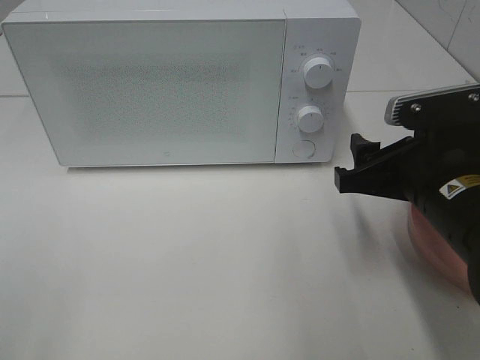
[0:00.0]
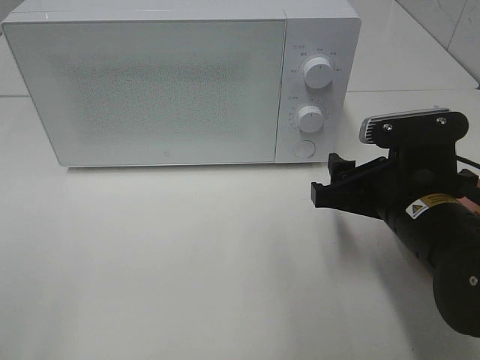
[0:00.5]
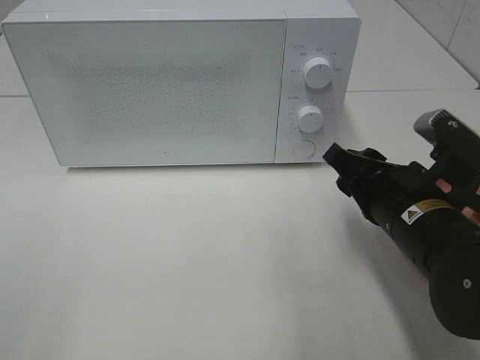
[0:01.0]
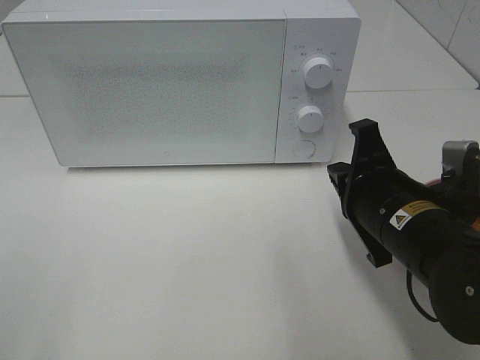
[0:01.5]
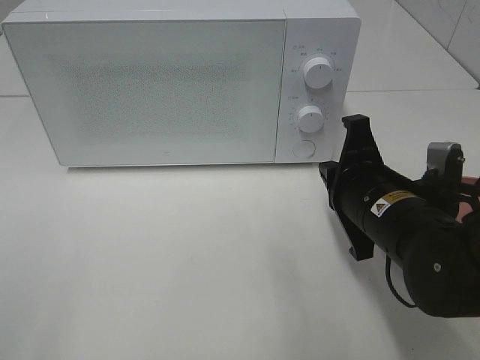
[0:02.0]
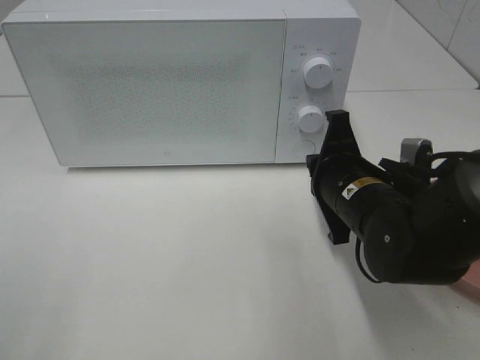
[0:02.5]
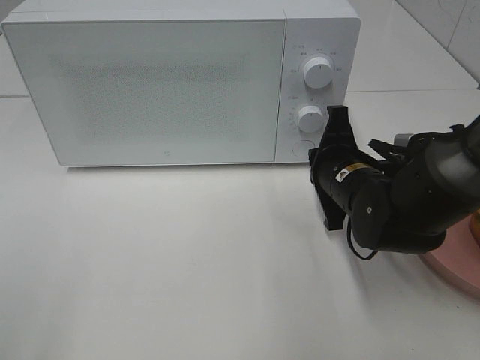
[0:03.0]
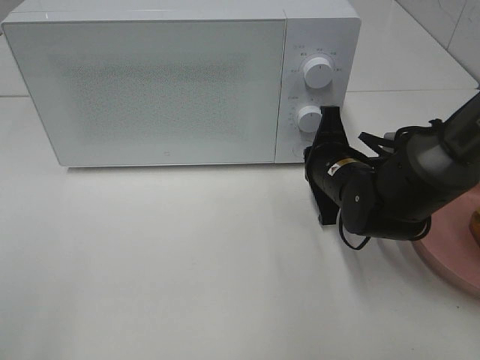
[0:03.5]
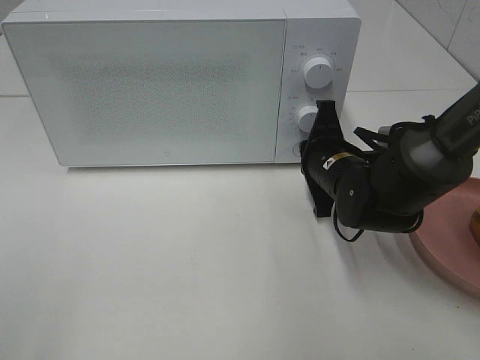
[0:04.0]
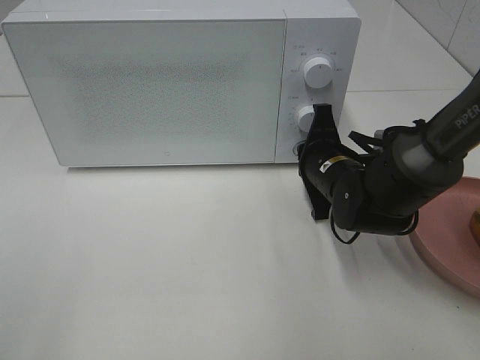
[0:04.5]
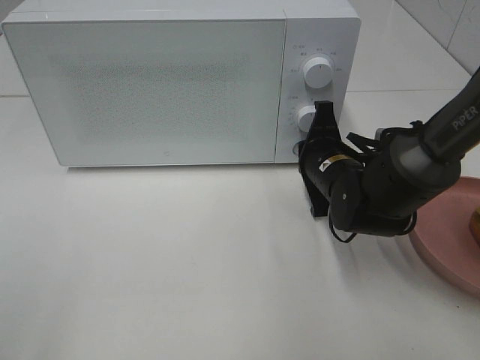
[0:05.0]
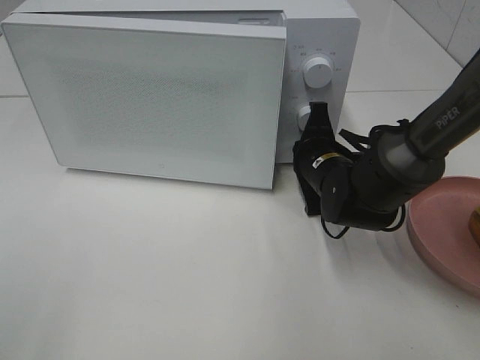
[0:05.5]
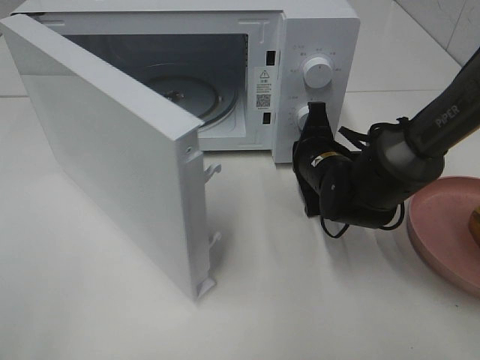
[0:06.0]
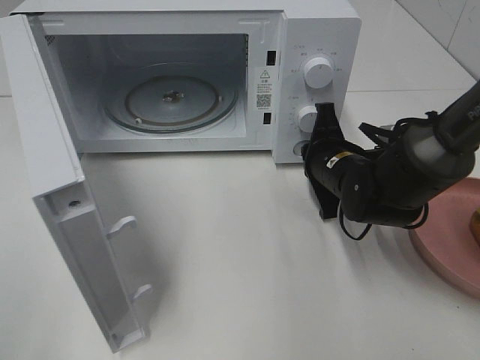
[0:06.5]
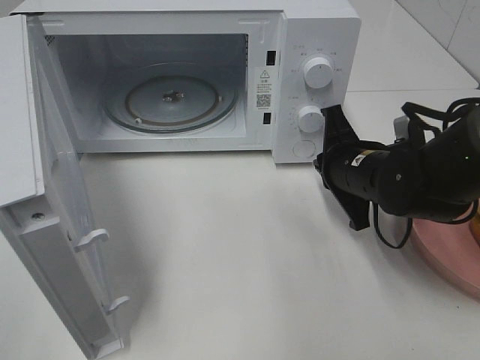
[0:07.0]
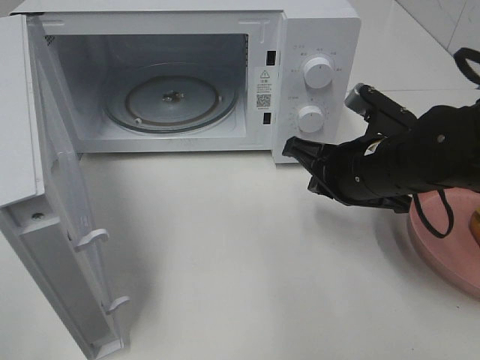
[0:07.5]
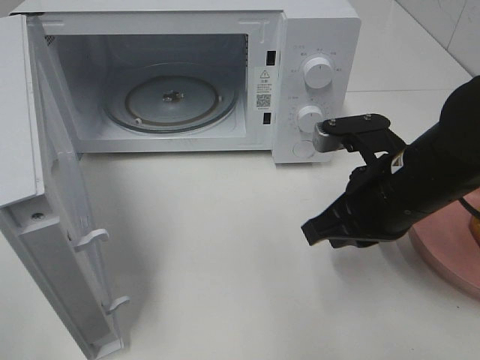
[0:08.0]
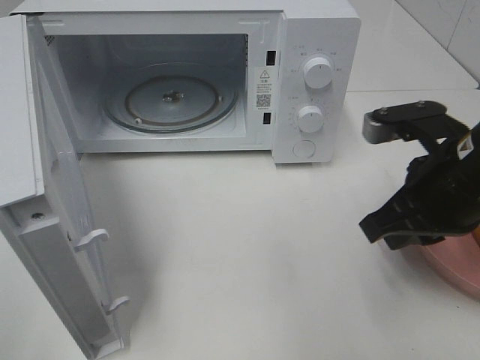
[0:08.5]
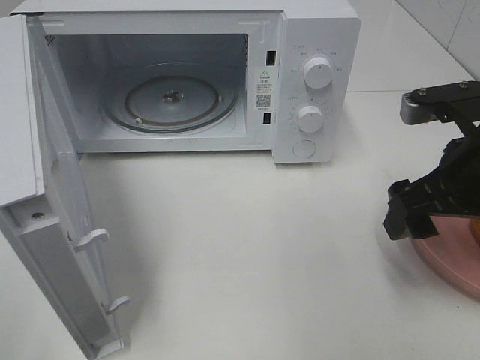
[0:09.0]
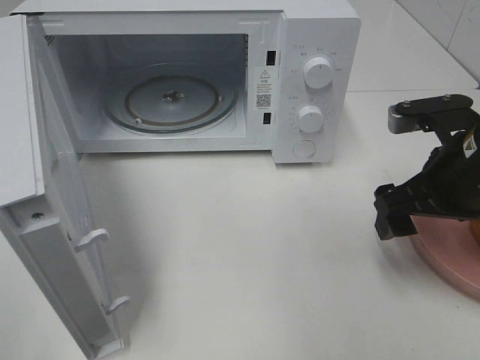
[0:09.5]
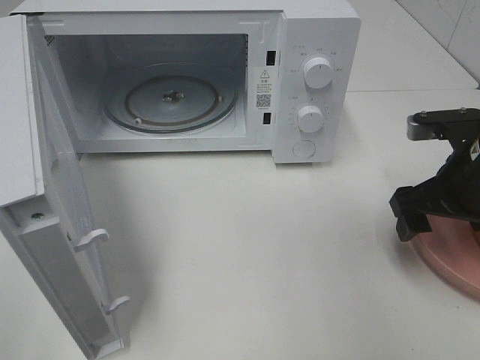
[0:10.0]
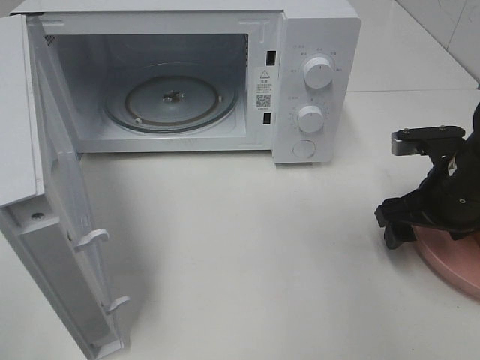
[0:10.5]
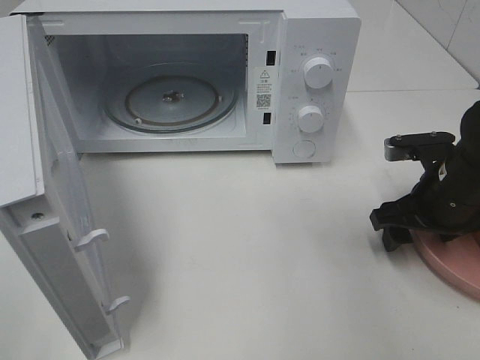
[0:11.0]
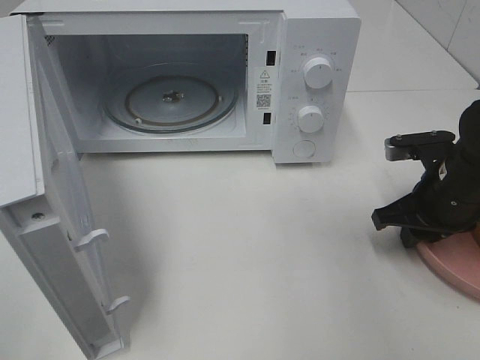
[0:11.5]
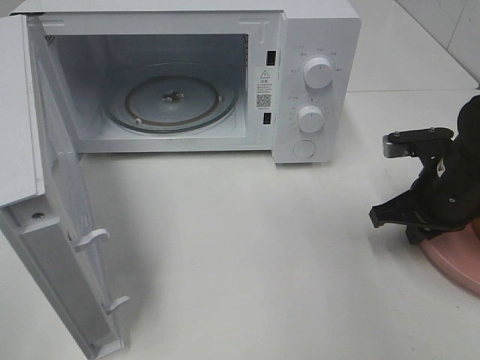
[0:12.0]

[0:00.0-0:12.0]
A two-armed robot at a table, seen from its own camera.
Task of the whole recording: Heat the burger.
Step, 0:00.0 to 0:06.5: Right hand: press the switch.
0:00.0 to 0:02.0: The right gripper ends up roughly 5 cm from where it was, and closes up.
0:02.0 to 0:04.0: The right gripper travels forward by roughly 10 cm.
0:06.0 to 0:08.0: The right gripper moves backward and upward, about 15 cm.
0:08.0 to 0:10.0: The right gripper shifts about 10 cm to the right, and opens.
0:10.0 to 0:12.0: The right gripper closes.

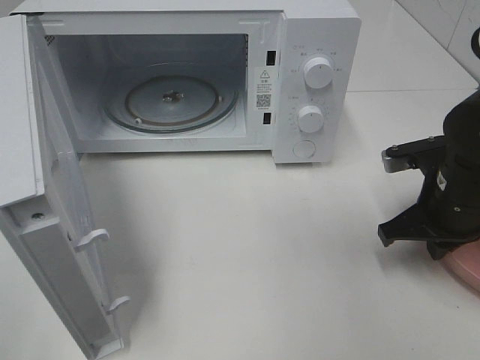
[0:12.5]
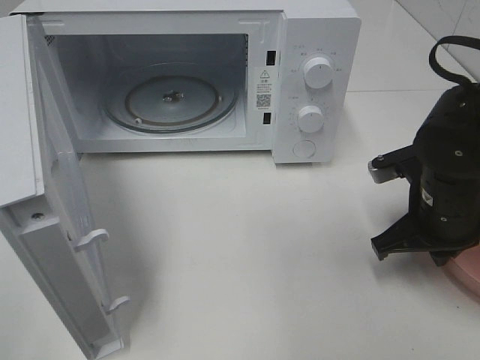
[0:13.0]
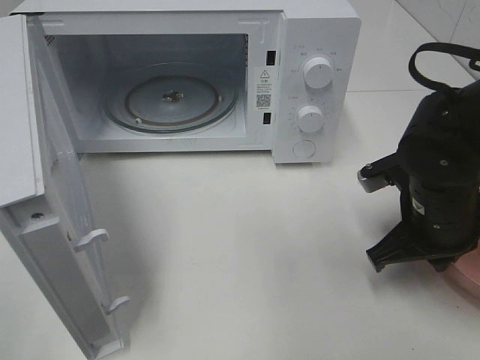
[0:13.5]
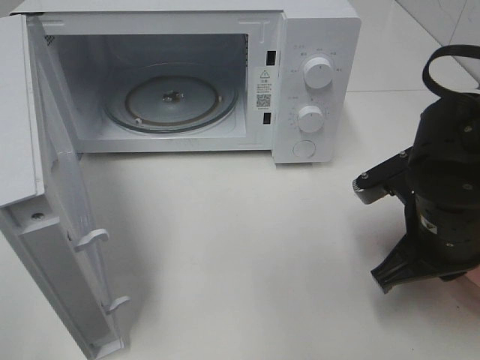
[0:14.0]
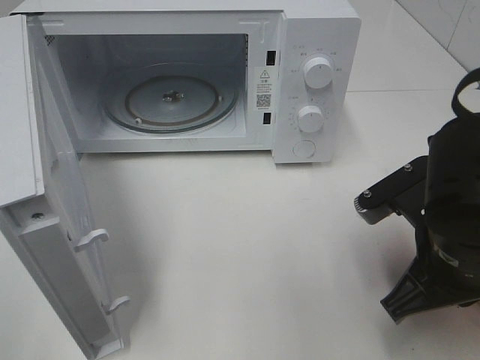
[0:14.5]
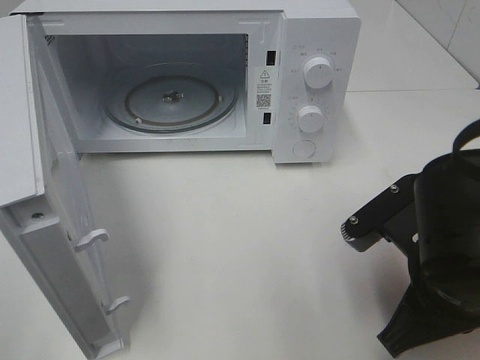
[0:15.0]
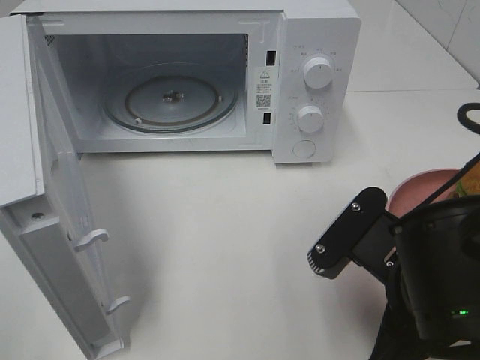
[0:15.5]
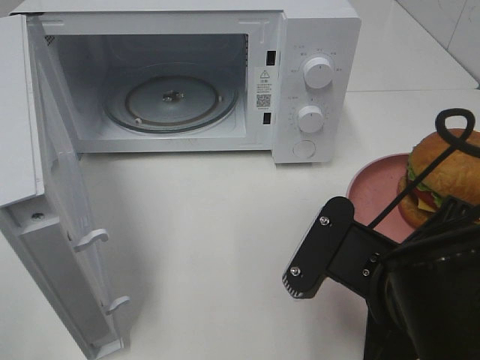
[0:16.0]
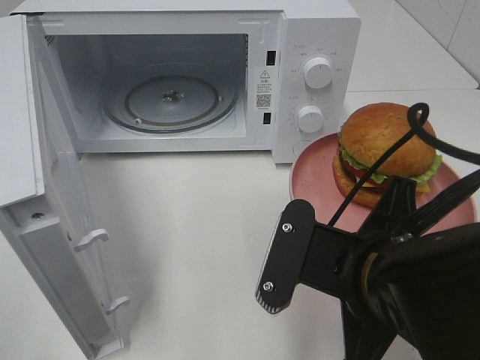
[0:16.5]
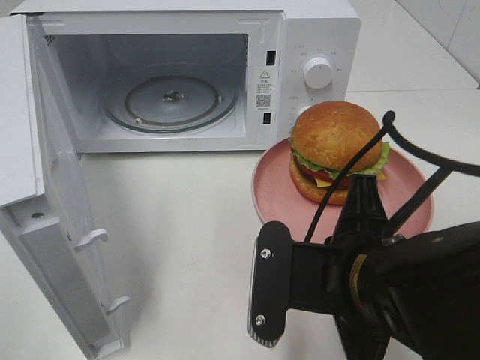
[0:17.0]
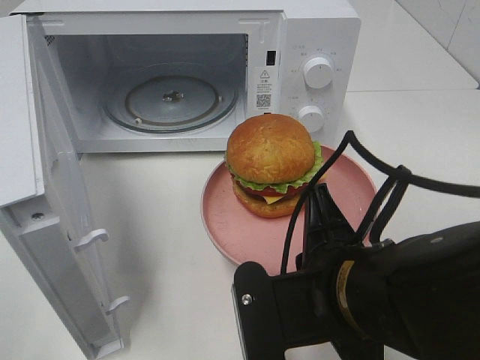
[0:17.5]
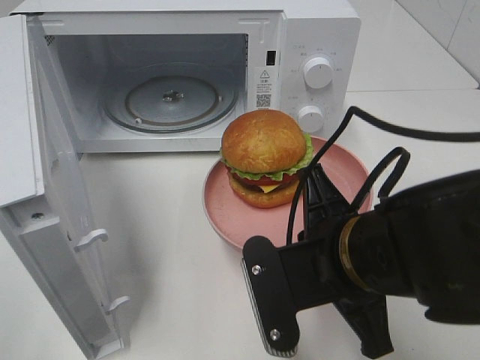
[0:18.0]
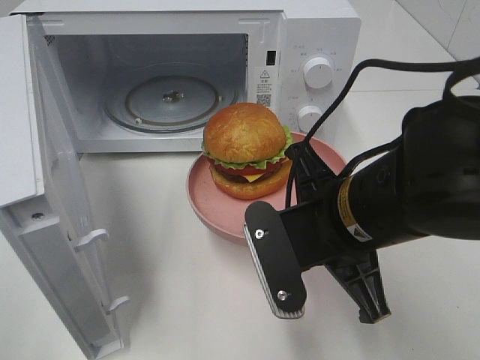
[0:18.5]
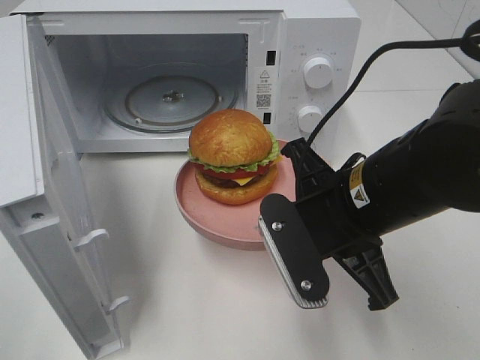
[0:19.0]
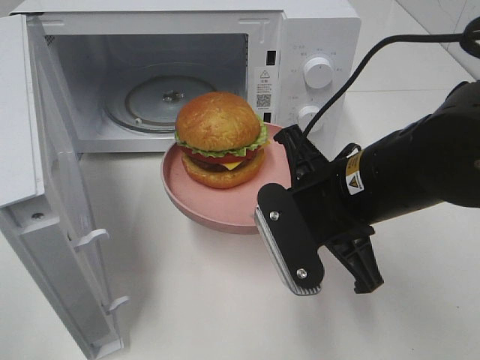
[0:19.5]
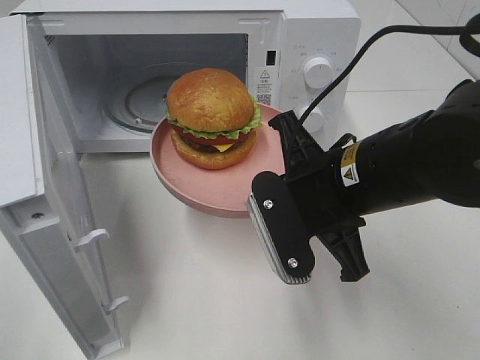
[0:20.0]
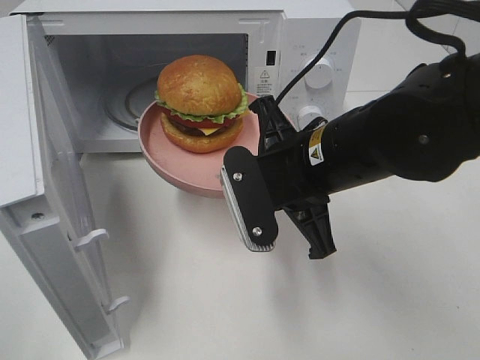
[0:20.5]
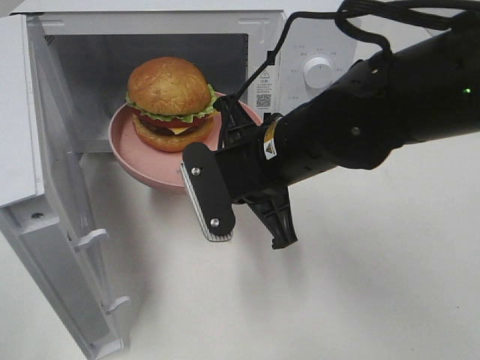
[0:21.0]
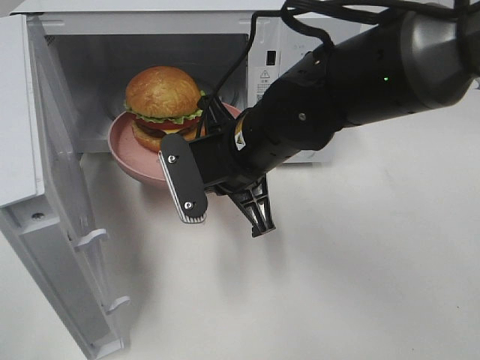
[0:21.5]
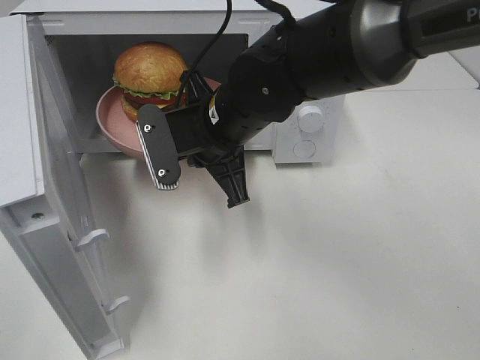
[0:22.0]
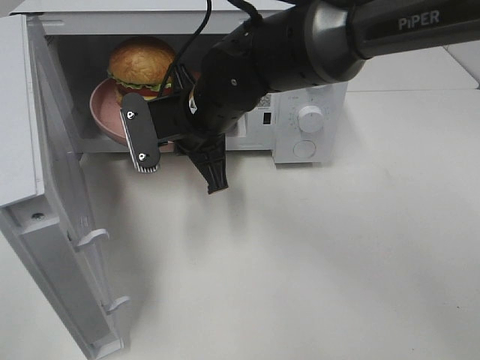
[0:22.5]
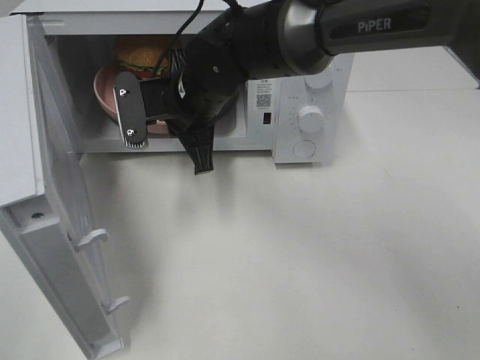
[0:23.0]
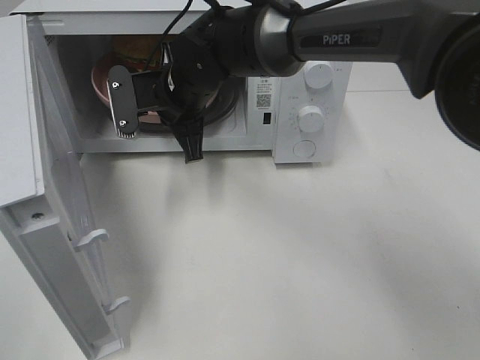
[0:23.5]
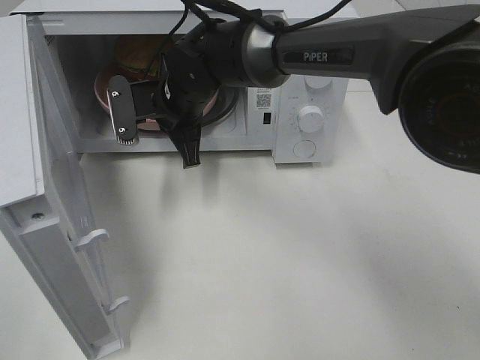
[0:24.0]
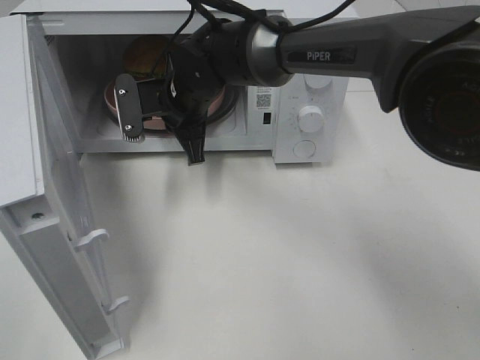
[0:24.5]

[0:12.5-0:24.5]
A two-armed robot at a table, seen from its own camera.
Task of the whole recording: Heat the burger.
0:12.5 to 0:14.5: The right gripper is displaced backward and to the left by approximately 10 cm.
0:14.5 to 0:16.5: The right gripper travels to the left by about 5 cm.
0:16.5 to 0:18.5: The right gripper heads forward, covering about 5 cm.
0:18.5 to 0:20.5: The right gripper moves forward, some 5 cm.
0:20.5 to 0:22.5: The right gripper heads to the left and forward, covering roughly 15 cm.
0:22.5 to 0:24.5: The right gripper goes roughly 5 cm forward.

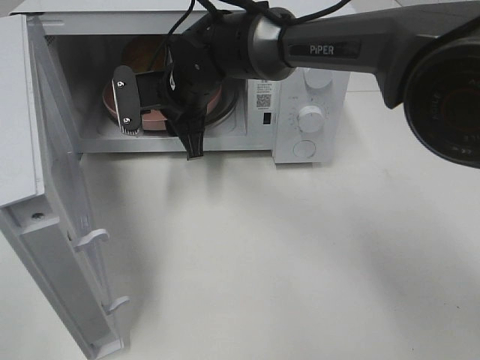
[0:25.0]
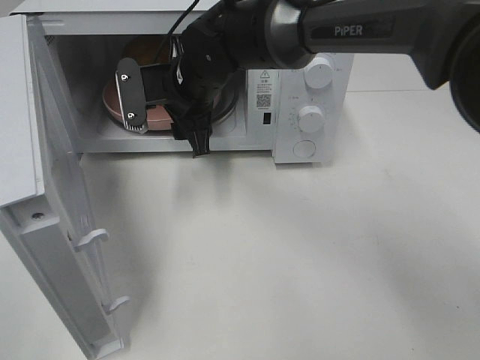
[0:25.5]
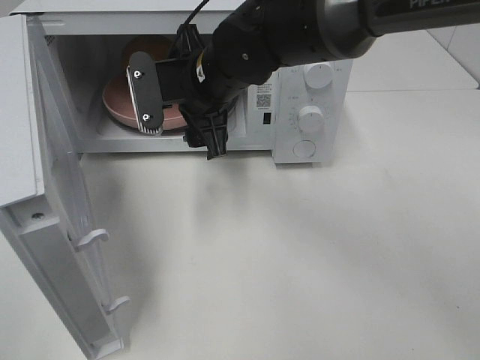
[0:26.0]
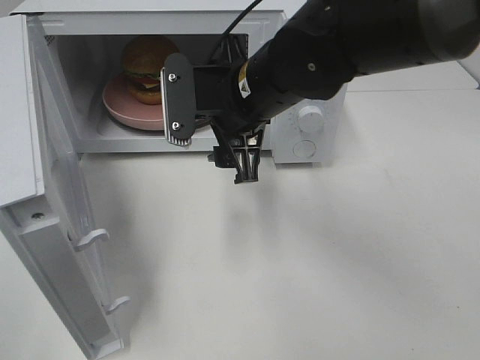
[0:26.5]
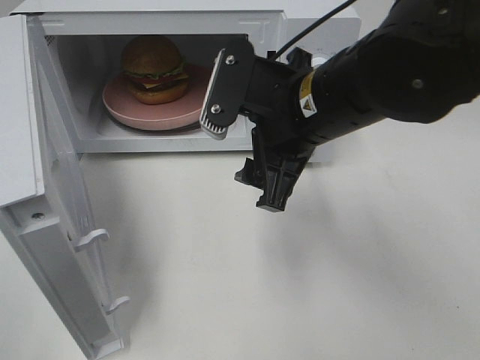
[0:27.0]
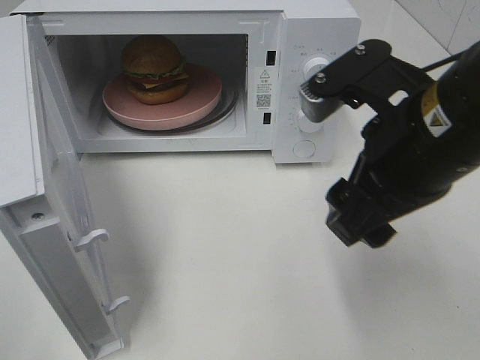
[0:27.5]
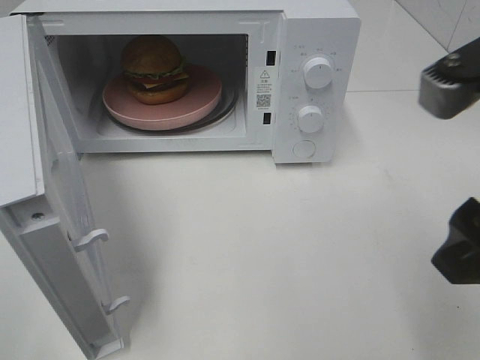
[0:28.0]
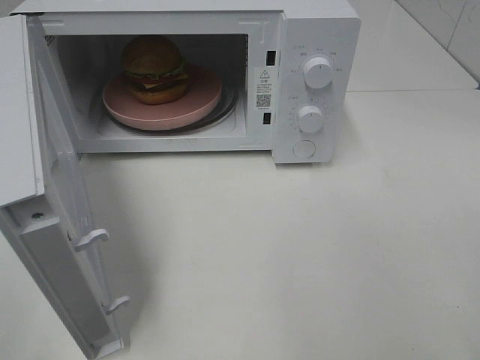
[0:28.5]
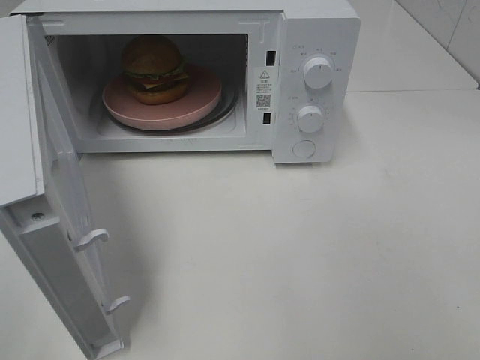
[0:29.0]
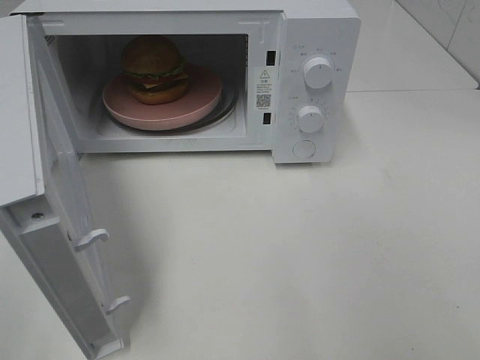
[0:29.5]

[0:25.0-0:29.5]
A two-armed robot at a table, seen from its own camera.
Task of the whole recording: Heat the burger.
0:25.0 to 0:27.0: The right gripper travels backward, to the right and upward by roughly 20 cm, and opens up.
0:27.0 to 0:29.5: The right gripper moves backward and to the right, some 35 cm.
